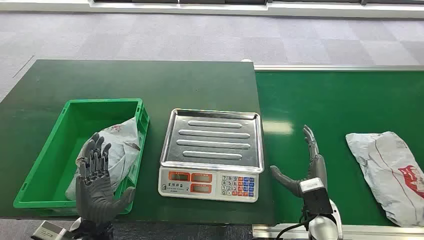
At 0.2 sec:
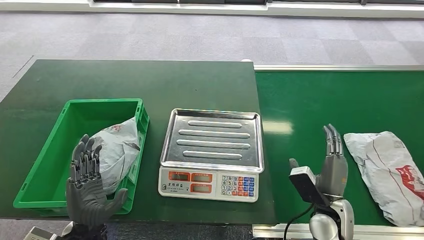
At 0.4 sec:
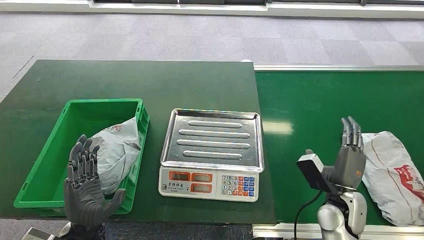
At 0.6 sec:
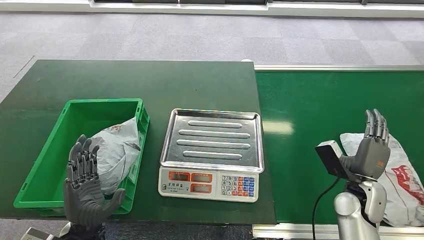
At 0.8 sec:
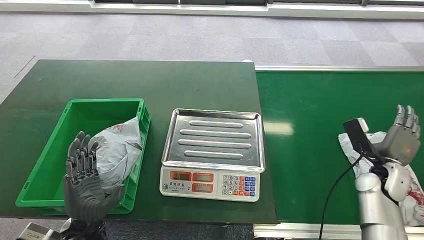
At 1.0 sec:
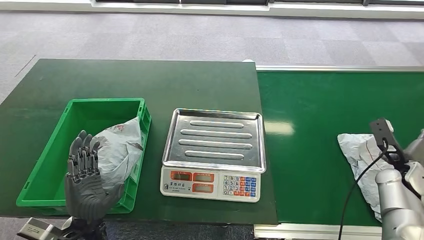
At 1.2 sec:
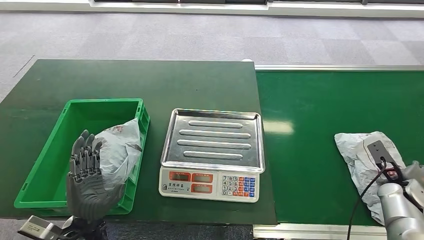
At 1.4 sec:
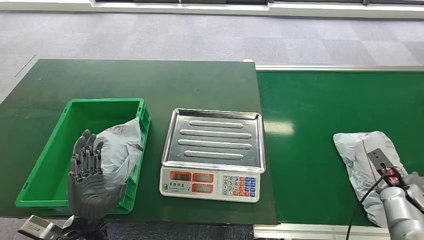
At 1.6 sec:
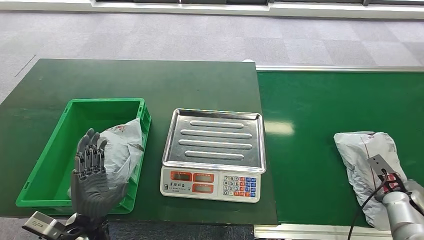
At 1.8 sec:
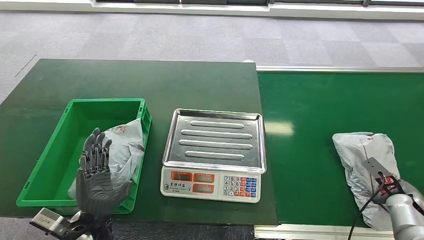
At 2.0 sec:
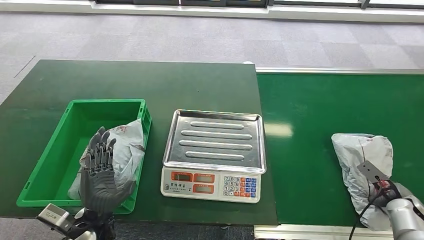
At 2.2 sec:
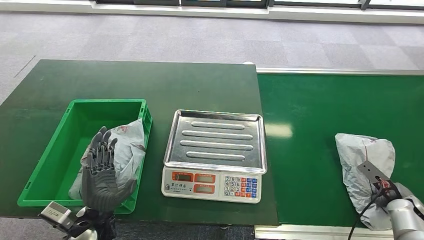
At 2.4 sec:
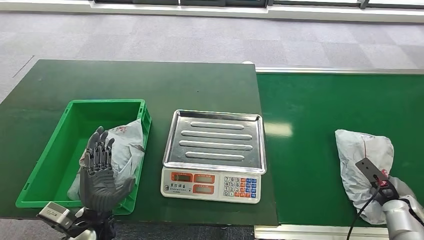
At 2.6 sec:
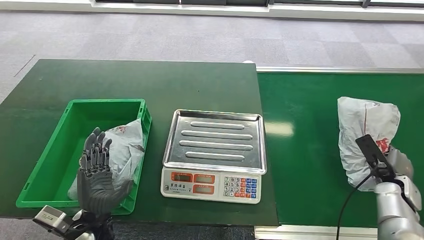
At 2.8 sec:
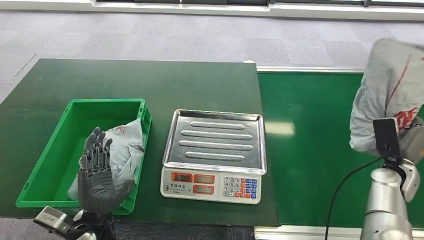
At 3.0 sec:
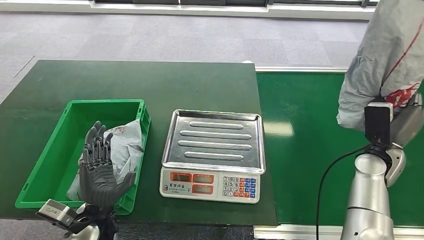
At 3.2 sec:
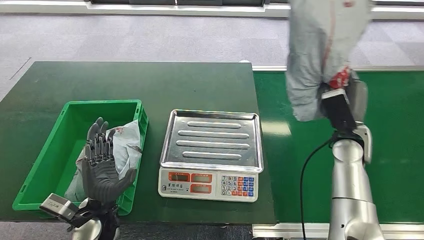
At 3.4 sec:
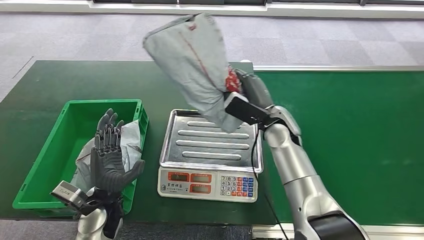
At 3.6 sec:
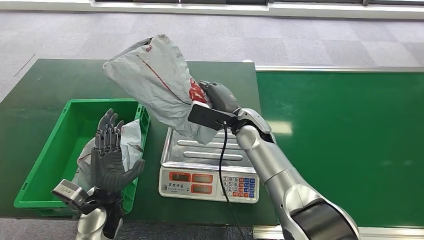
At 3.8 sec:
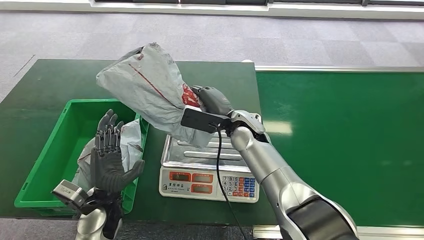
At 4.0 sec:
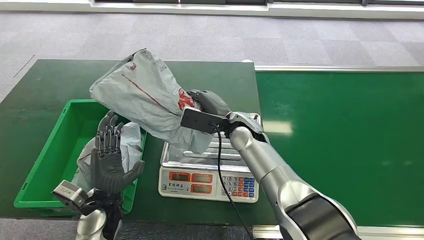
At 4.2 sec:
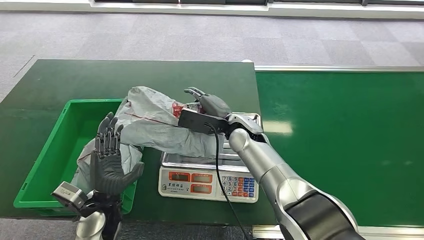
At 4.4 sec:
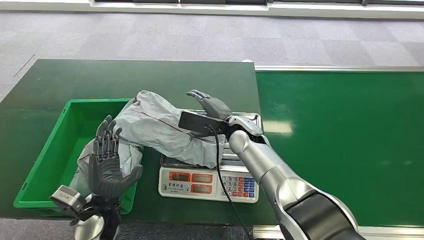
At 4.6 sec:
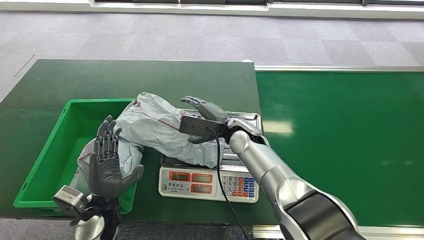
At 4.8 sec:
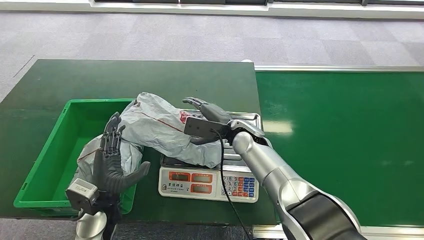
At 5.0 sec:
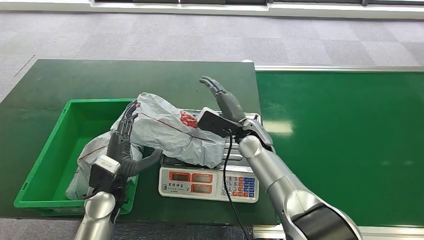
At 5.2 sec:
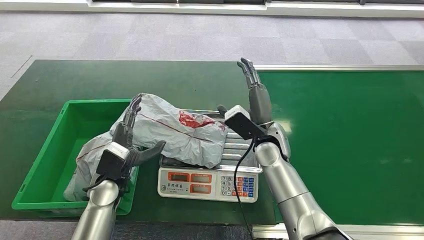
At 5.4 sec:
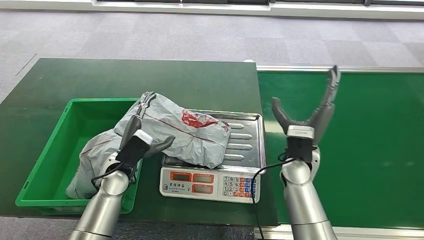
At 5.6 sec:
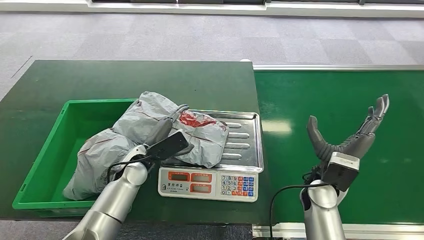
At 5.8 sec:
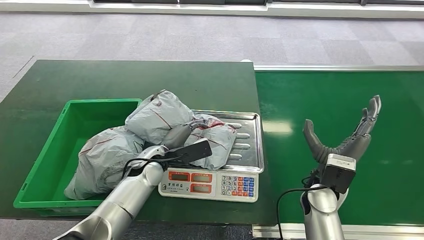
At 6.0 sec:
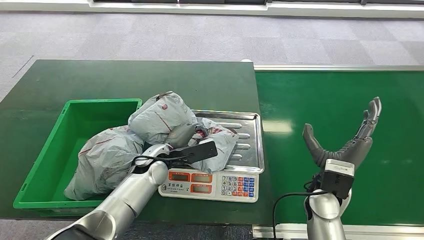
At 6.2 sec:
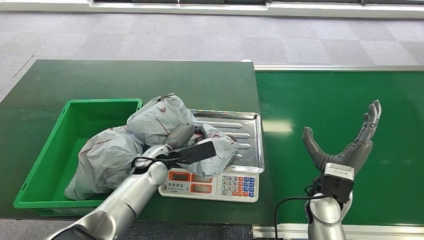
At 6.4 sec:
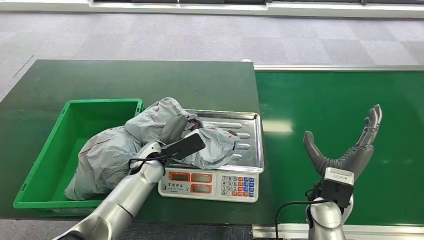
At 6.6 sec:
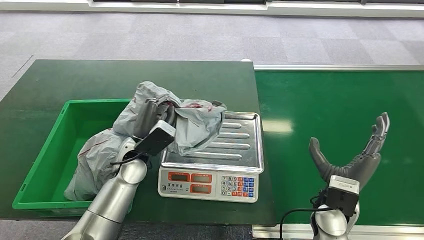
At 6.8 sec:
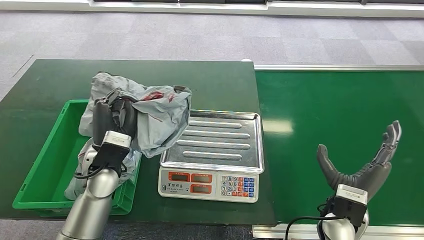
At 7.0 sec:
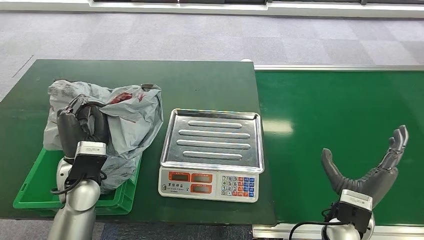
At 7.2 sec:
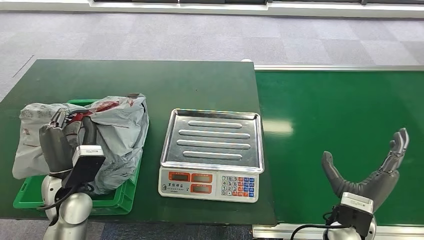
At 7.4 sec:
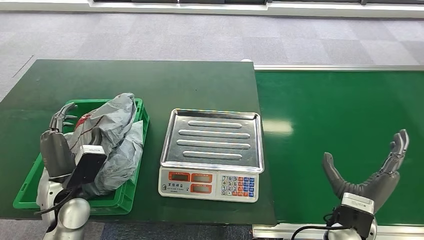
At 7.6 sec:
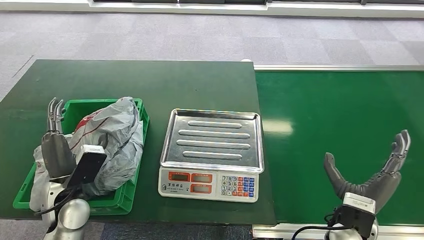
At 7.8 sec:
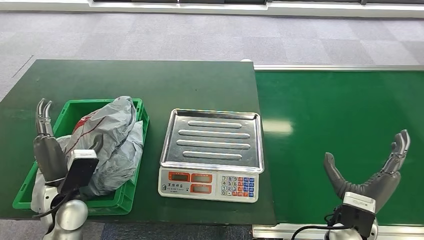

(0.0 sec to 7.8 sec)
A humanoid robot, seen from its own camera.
Task of the whole recording: Weigh the package on the weighing device and place it in the left basket.
Step, 0.0 sec - 3.0 sec: Pick up the package from the conveyor belt.
Step, 3.2 sec - 5.0 sec: Place the package onto the inbound machine.
Step, 5.2 sec - 7.0 sec: Pick up the package from the inbound machine.
Step, 7.2 sec - 7.8 sec: Place the package into the parcel locker.
